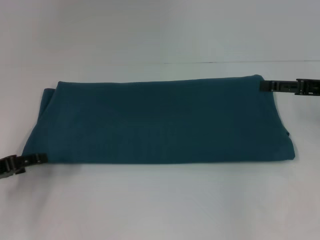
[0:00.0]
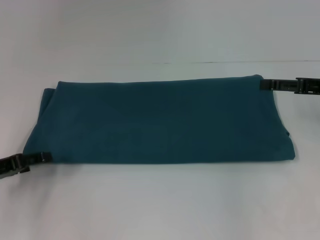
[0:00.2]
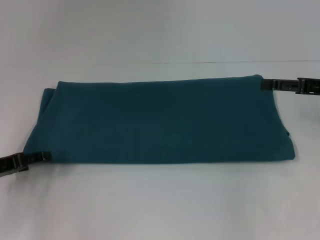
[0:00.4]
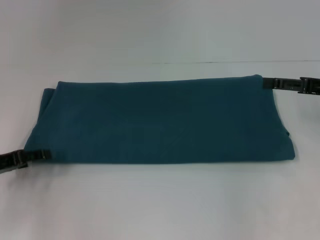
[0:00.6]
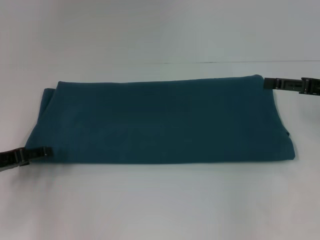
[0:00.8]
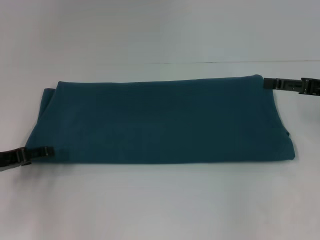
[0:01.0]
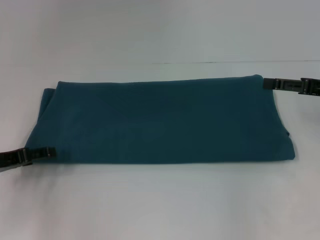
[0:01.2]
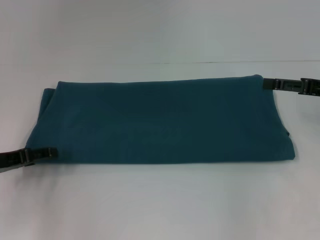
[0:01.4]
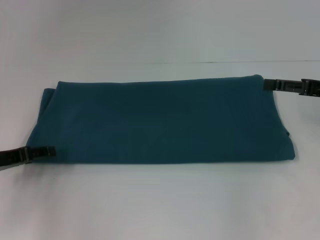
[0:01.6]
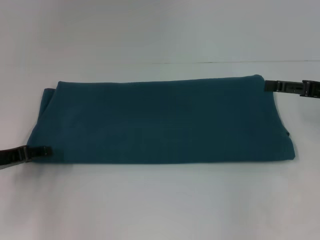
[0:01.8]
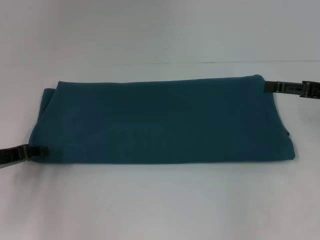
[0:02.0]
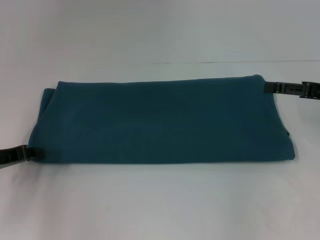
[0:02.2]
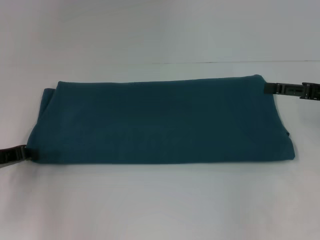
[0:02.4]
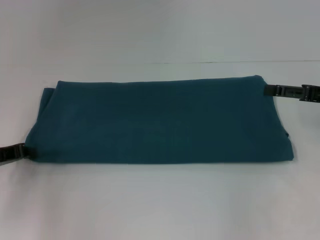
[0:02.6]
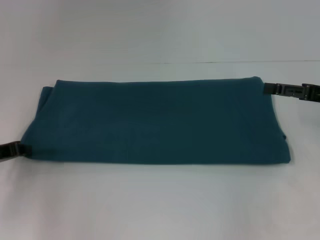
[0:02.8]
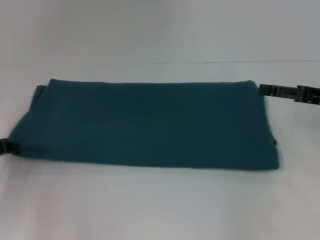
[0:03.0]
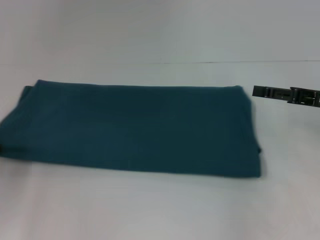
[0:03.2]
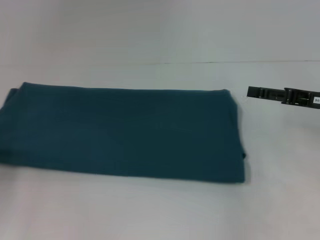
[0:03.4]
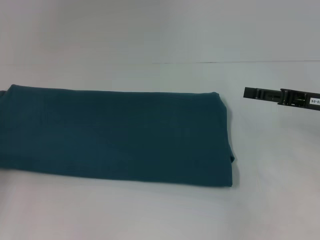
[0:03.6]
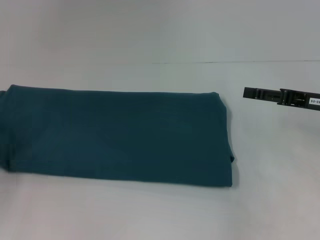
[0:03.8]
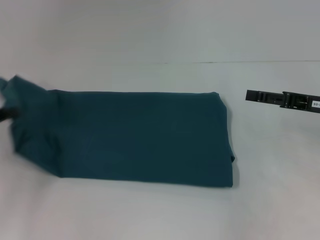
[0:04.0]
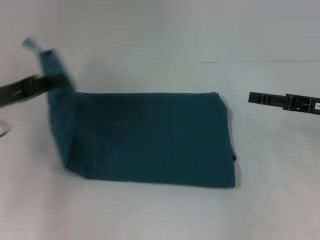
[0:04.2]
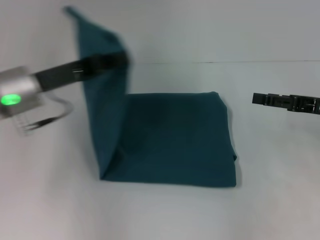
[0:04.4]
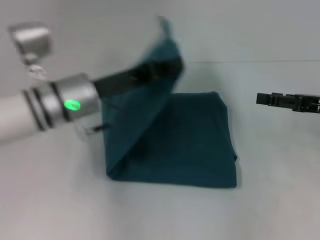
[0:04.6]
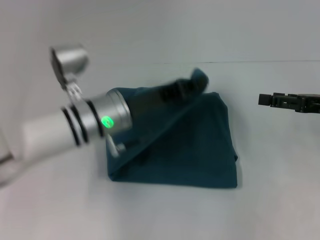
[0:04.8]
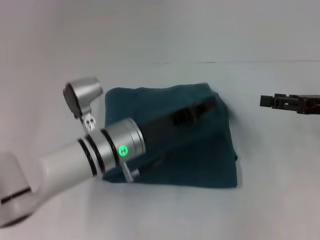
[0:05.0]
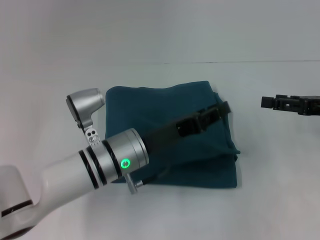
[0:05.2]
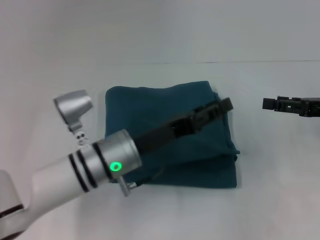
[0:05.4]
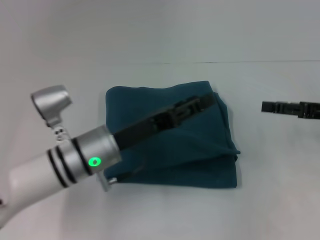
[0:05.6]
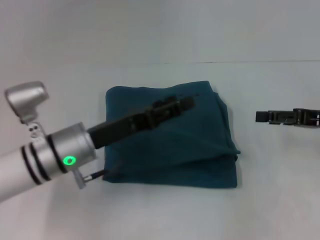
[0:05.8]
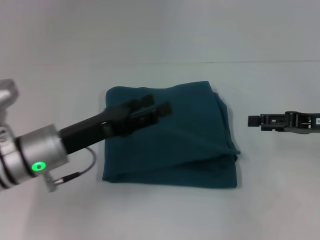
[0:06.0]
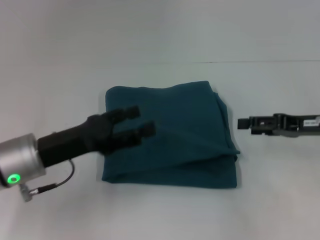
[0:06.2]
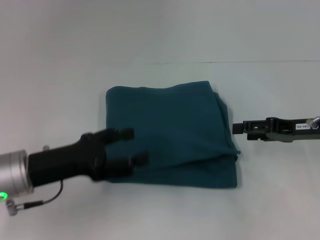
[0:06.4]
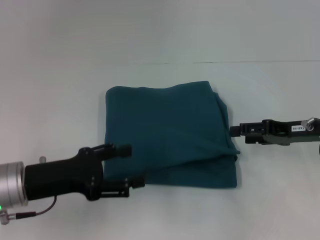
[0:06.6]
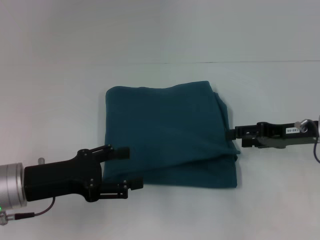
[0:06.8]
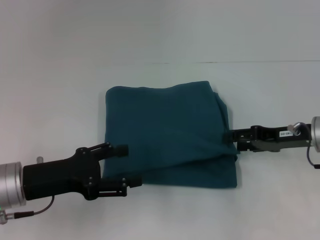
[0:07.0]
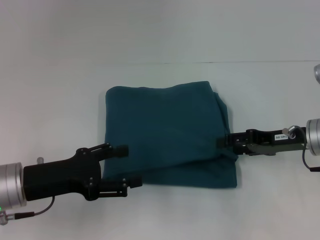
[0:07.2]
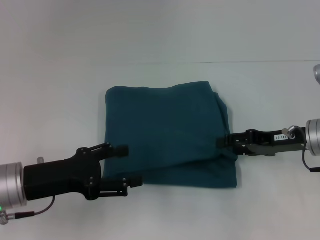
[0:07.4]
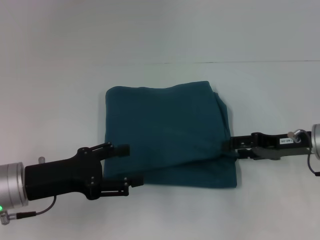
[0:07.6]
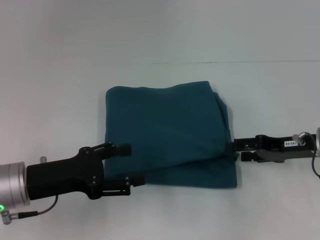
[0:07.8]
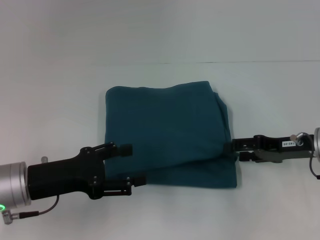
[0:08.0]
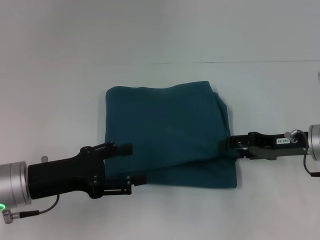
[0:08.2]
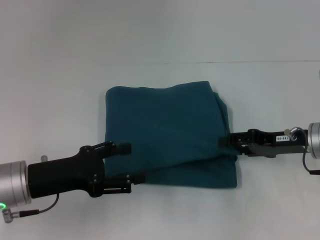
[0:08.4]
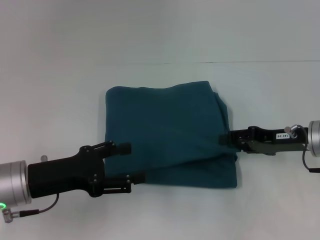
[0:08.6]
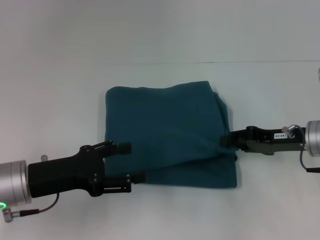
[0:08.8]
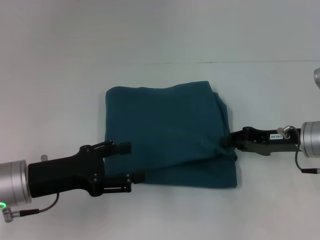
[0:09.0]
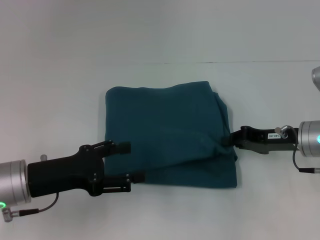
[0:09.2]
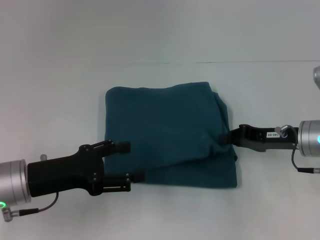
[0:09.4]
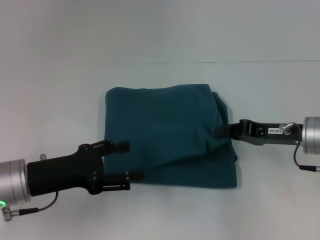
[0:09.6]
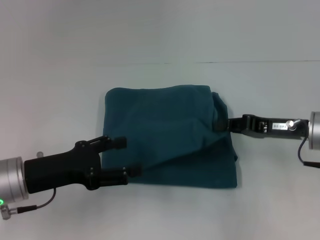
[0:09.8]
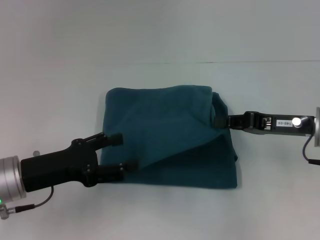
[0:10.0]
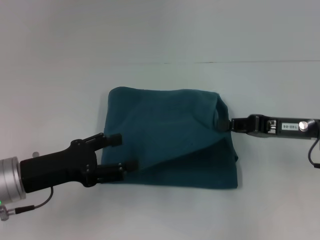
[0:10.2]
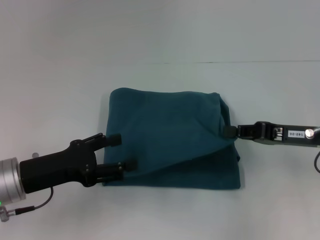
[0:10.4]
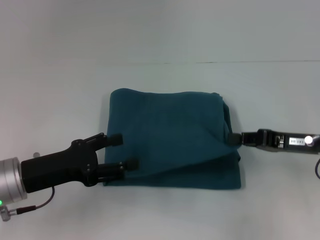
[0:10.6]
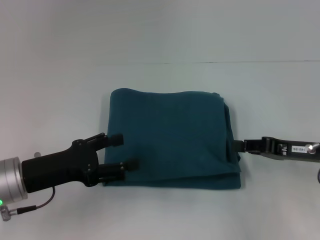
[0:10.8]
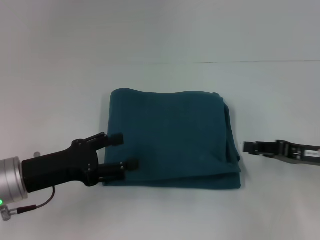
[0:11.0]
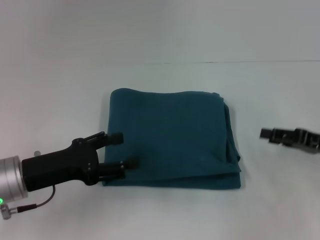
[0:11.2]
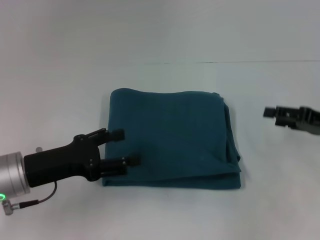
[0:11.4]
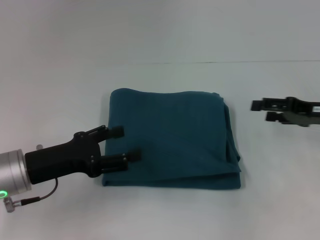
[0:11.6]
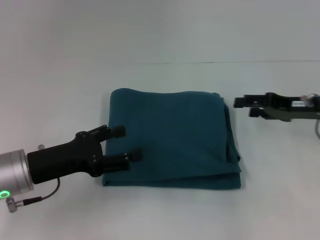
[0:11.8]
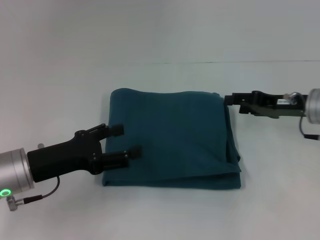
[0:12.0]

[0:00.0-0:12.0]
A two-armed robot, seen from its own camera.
Step, 0:00.0 to 0:05.4: Fold the clothes to the left.
0:00.0 to 0:01.6: The grippers stay close to where they were, moving slightly.
0:01.6 to 0:03.0: The left gripper closes its fingers.
0:03.0 to 0:04.4: The left gripper heads to the right and upward, covering some 15 cm.
0:04.4 to 0:06.0: The left gripper moves downward, roughly 5 cm, travels to the right and back again, about 15 cm each way, and opens up.
0:06.0 to 0:07.6: The right gripper shifts by about 5 cm. Meanwhile the left gripper shifts by approximately 5 cm.
0:07.6 to 0:09.0: The right gripper closes.
0:10.4 to 0:12.0: The right gripper moves forward, roughly 5 cm, and opens.

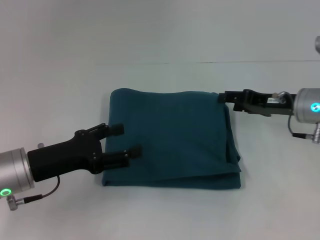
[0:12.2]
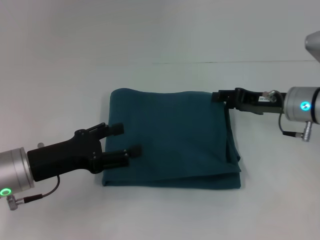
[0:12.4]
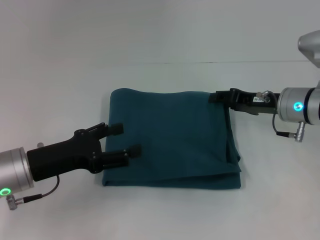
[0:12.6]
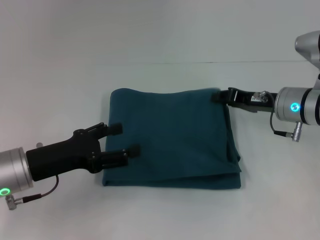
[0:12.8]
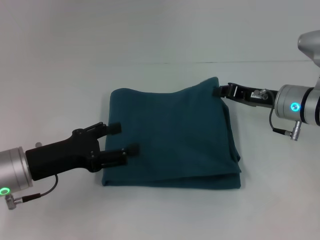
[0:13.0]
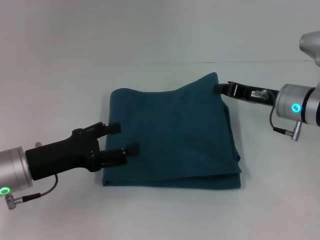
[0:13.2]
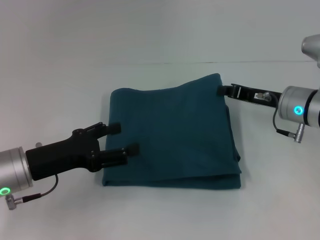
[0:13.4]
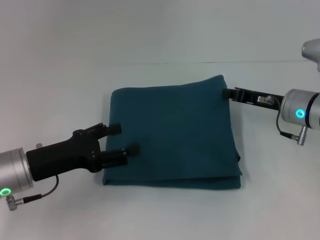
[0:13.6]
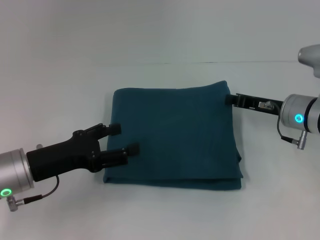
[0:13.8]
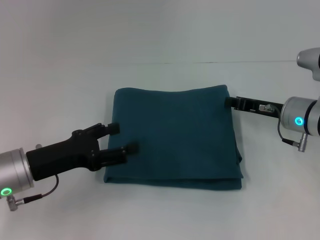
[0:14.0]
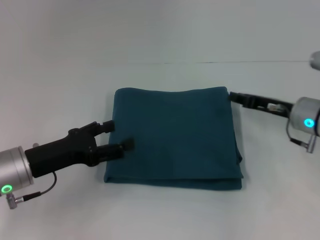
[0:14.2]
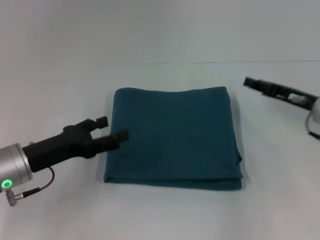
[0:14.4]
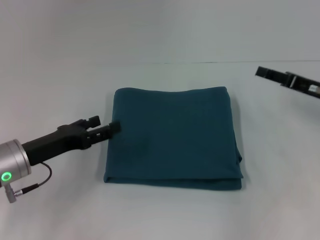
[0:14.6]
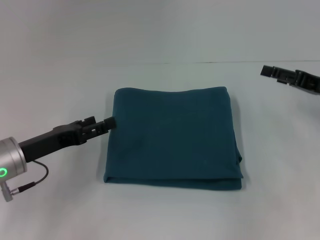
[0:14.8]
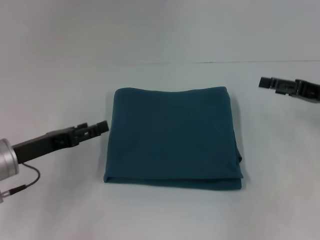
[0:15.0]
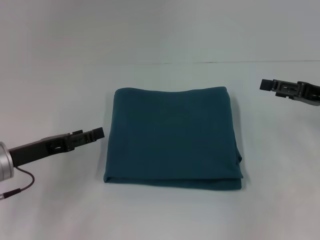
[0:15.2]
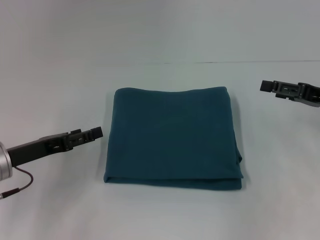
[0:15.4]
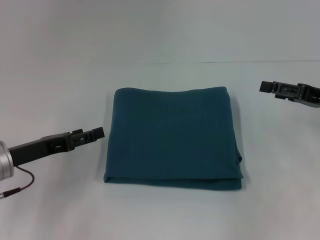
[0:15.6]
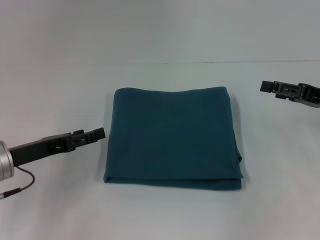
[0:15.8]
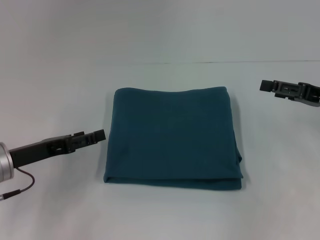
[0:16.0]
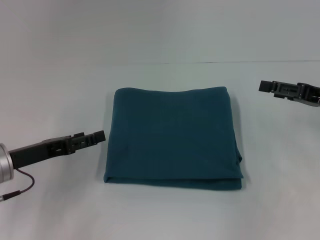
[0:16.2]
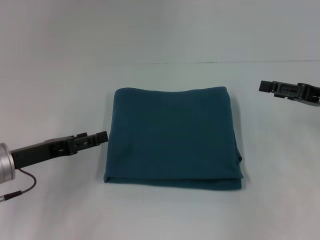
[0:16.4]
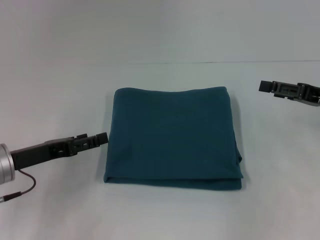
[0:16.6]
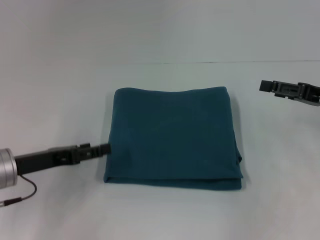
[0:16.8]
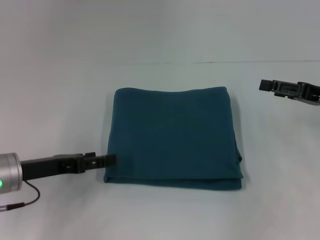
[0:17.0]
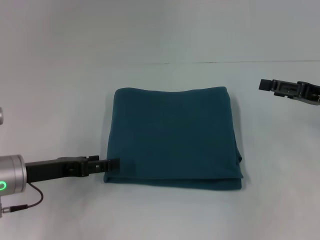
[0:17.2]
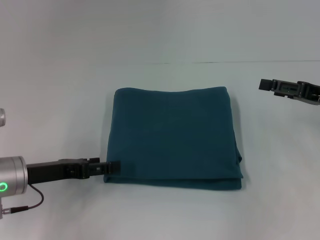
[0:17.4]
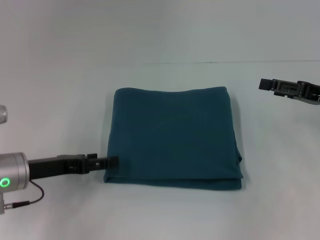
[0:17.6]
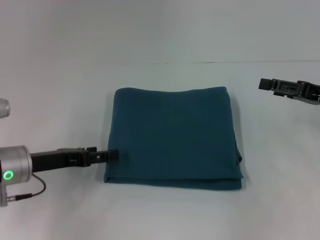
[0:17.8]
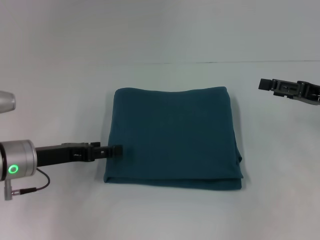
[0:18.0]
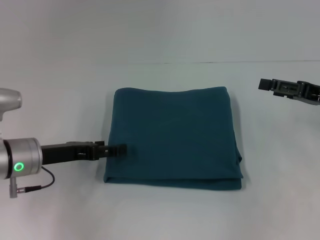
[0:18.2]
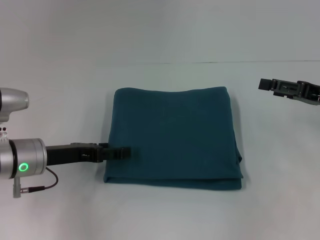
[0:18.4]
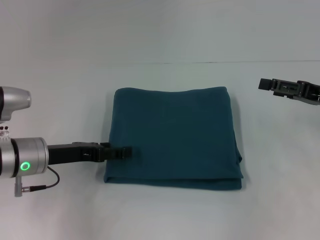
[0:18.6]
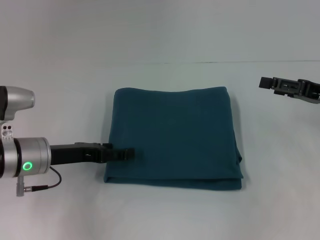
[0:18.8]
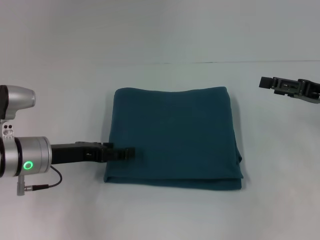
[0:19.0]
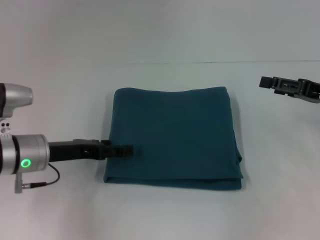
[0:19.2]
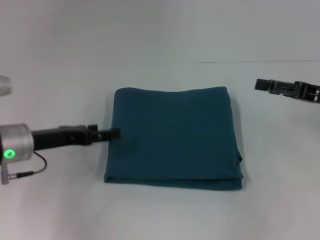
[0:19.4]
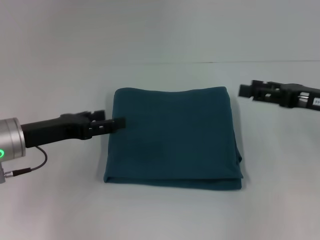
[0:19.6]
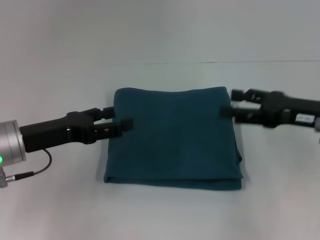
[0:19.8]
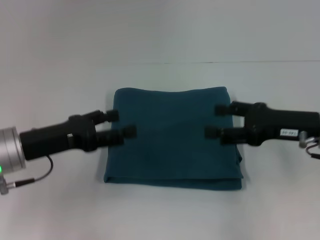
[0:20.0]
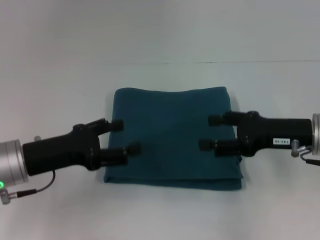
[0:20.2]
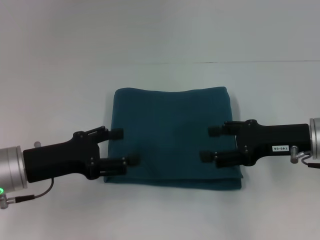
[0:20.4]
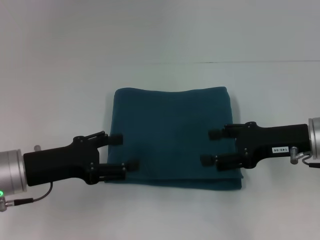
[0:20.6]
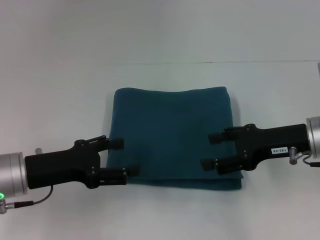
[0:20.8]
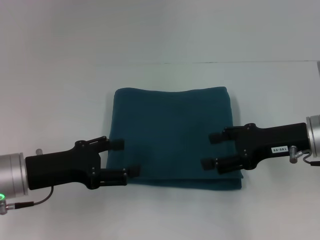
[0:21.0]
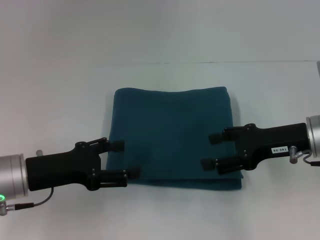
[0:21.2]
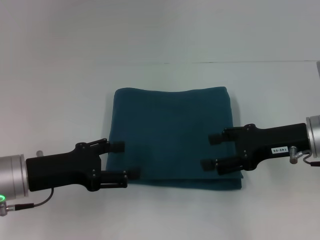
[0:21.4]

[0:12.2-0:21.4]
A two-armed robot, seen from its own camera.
0:12.2 to 0:13.8: The right gripper closes its fingers.
0:13.8 to 0:15.2: The right gripper moves to the right, about 10 cm, and opens up.
0:15.2 to 0:18.4: The grippers stay close to where they were, moving slightly.
0:18.4 to 0:19.8: The right gripper travels to the left by roughly 5 cm, while the left gripper ends up approximately 5 cm from where it was.

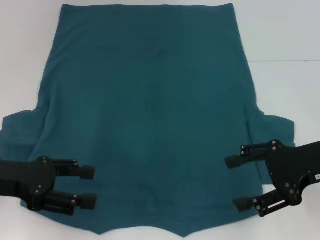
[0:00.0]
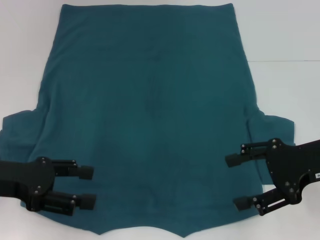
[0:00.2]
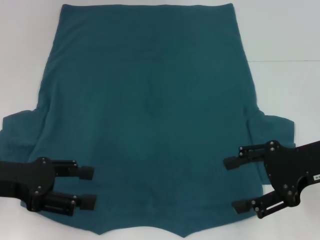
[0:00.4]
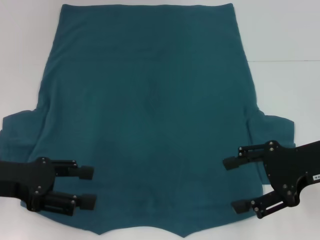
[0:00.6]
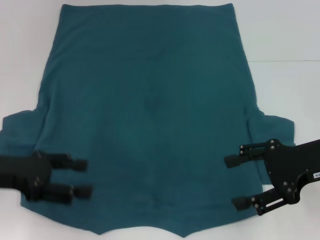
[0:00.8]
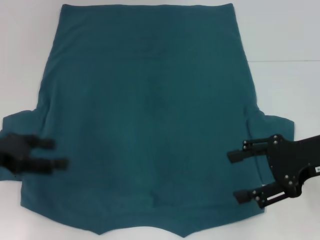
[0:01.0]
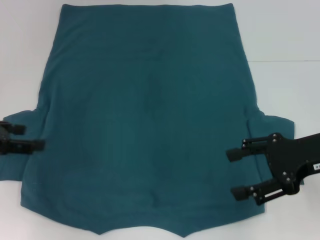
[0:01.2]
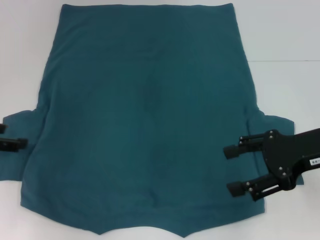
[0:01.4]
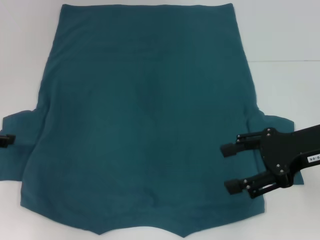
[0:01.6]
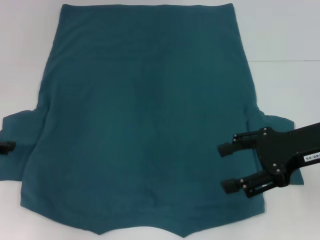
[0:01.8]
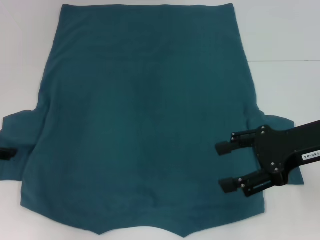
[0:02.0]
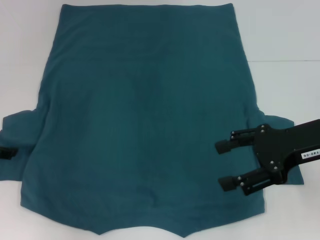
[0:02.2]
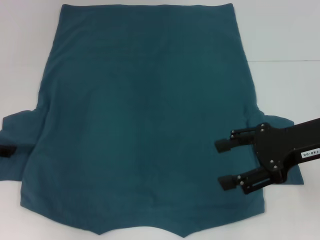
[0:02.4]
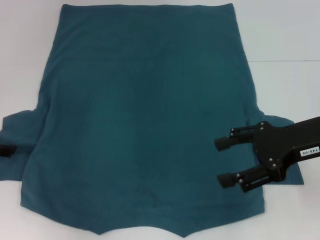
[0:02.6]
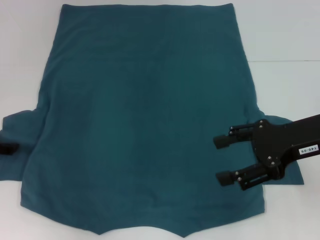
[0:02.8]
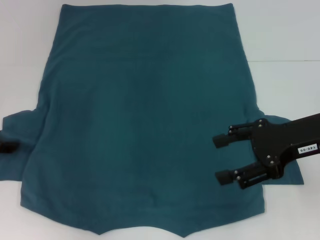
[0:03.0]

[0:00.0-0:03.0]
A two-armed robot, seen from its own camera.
0:00.0 to 0:01.6: The left gripper shifts some 10 cm to the left and forward.
